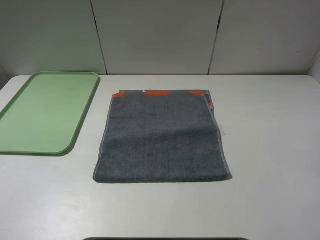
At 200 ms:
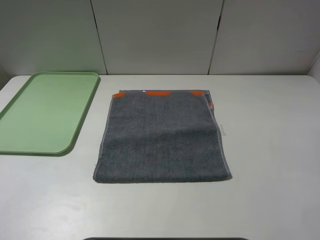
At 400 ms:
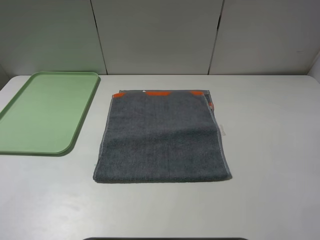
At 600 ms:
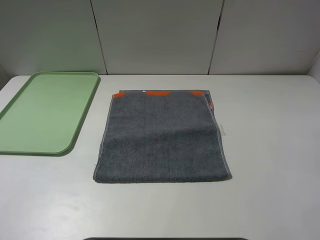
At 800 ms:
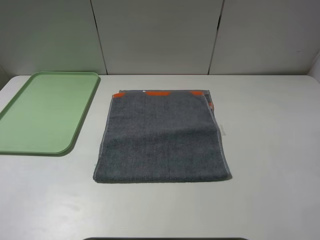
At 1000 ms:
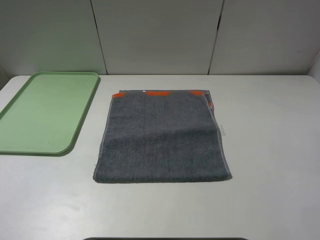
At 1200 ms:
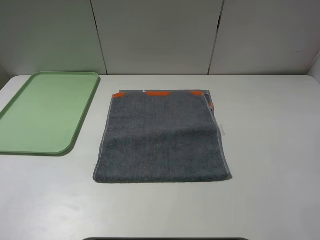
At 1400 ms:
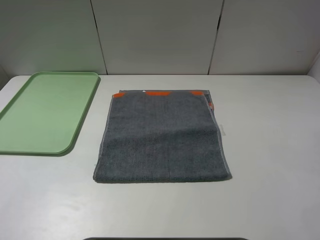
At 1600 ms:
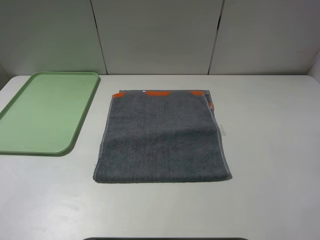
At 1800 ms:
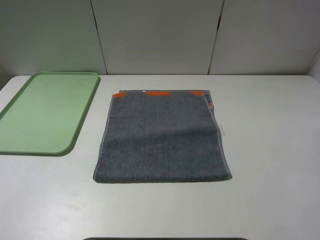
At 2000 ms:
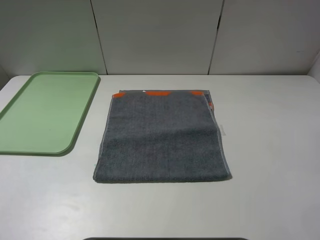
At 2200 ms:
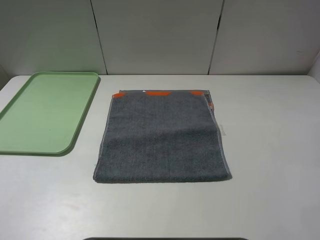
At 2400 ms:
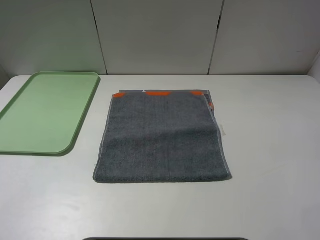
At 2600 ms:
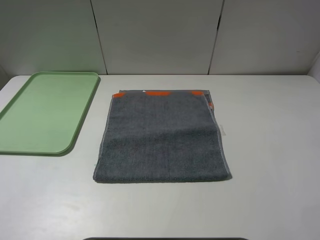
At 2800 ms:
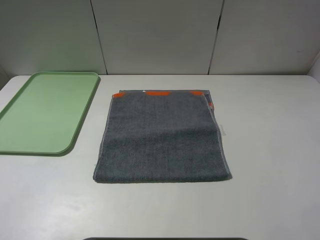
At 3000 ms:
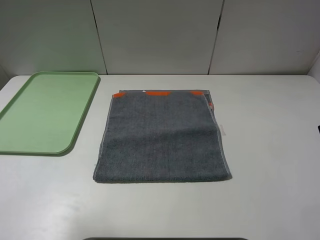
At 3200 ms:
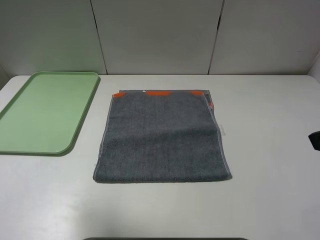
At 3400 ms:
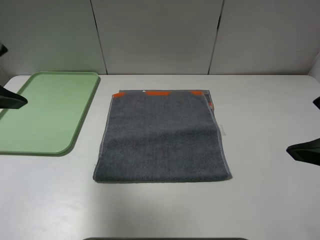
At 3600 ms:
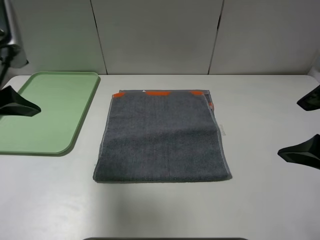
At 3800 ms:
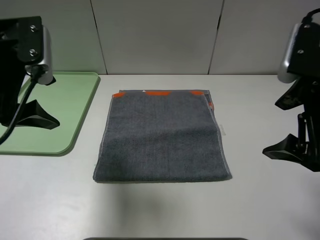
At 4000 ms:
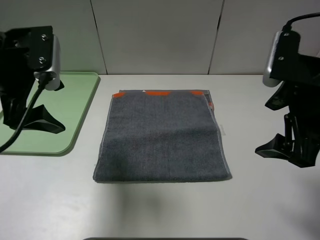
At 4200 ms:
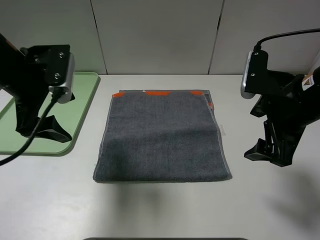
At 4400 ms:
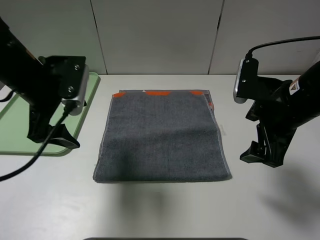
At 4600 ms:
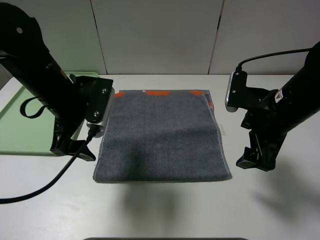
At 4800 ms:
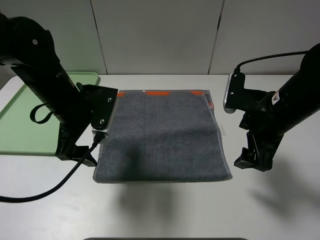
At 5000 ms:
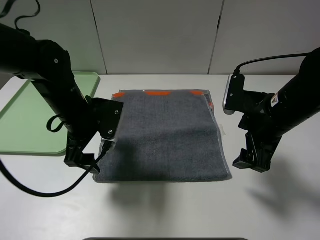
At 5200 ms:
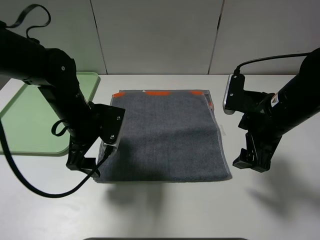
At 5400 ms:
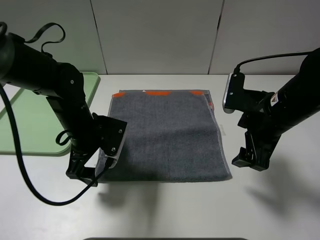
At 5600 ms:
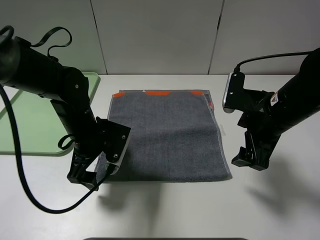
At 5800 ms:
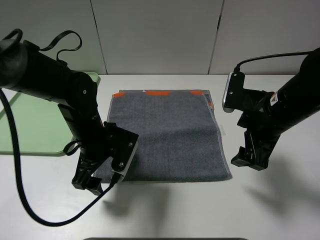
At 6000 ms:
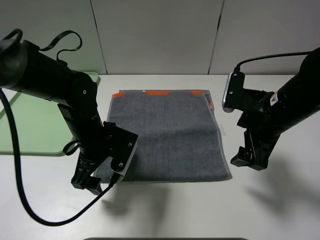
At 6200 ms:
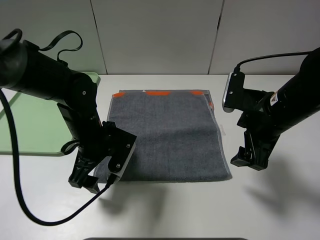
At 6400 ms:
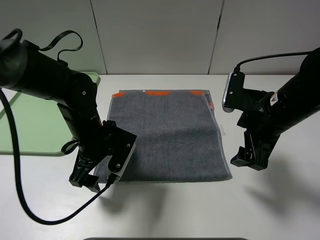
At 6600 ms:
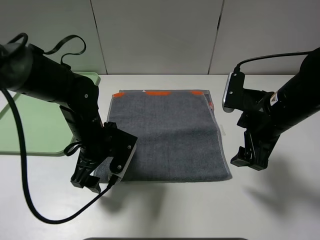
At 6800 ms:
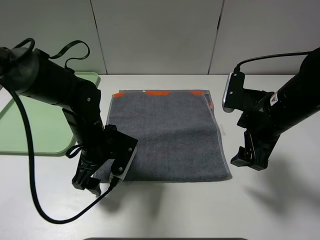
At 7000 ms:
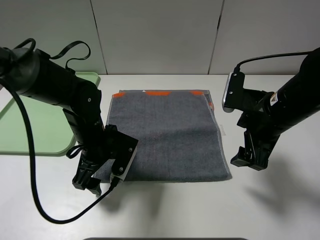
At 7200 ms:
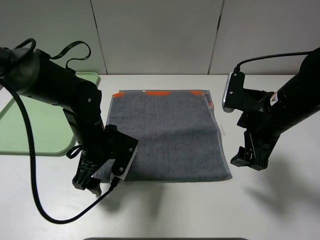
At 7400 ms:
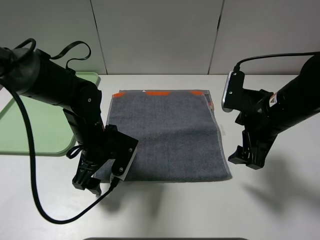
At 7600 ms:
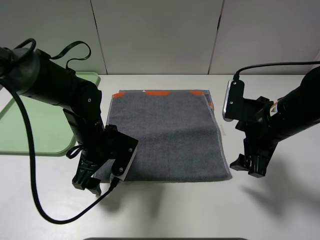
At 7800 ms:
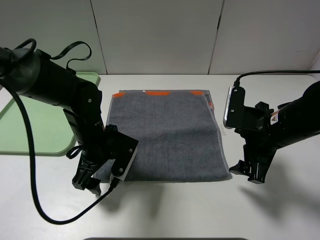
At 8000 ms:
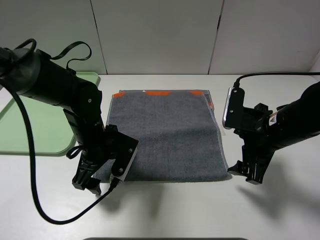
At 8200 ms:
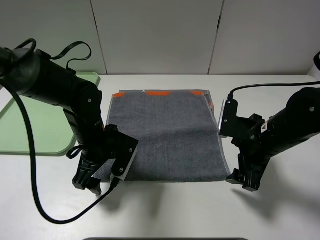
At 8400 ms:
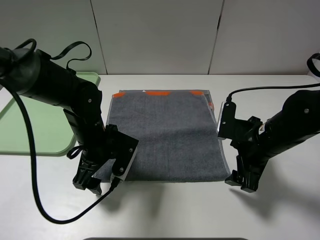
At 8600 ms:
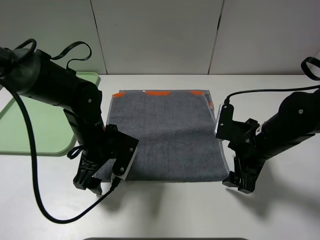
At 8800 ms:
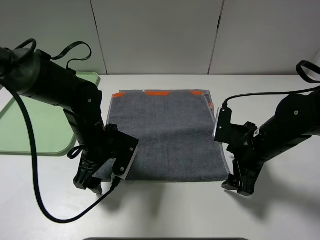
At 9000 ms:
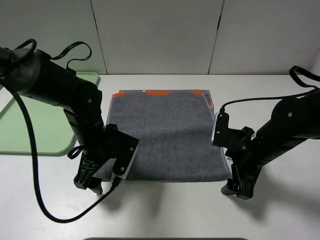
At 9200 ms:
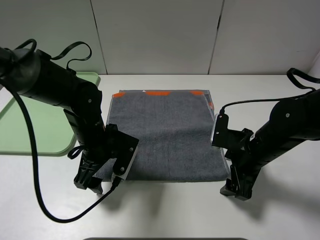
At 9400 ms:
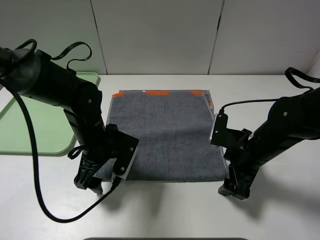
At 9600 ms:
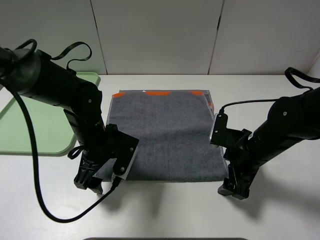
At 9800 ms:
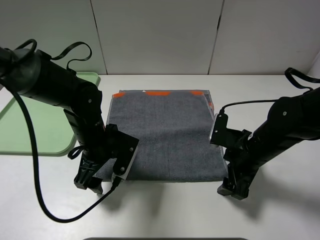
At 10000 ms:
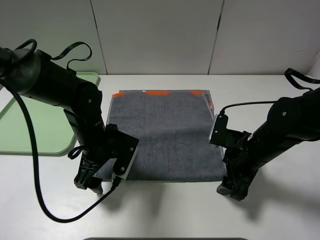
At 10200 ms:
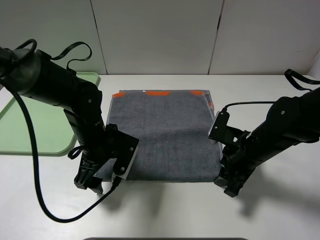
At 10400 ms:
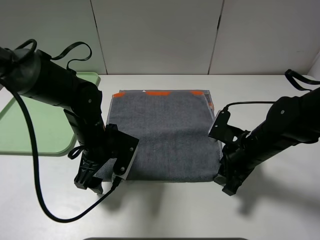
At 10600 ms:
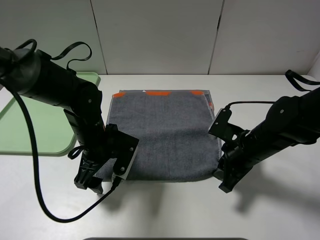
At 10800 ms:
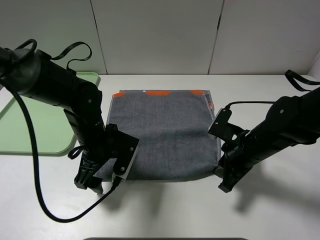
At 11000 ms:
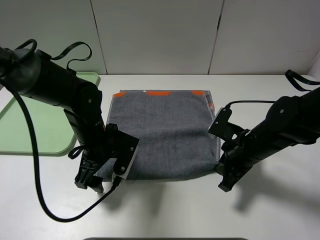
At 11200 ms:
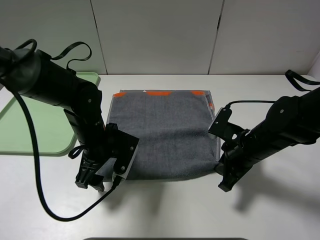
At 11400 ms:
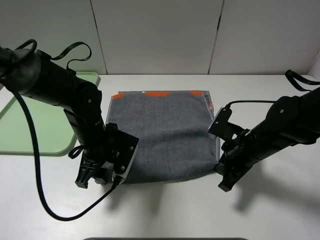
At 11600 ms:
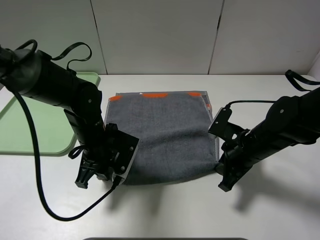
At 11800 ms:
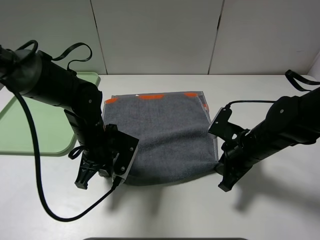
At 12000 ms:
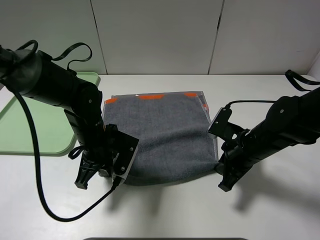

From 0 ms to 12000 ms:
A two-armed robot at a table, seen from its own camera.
From 0 ms to 1600 ms: The two grippers keep their place.
From 1600 ms to 3000 ms: The left gripper goes roughly 15 cm forward and upward.
From 3000 ms to 4400 ms: The right gripper shifts about 20 cm forward, downward and to the left. Meanwhile the left gripper shifts roughly 25 cm forward, downward and to the right.
From 4400 ms to 6000 ms: The left gripper is displaced downward and to the right by roughly 15 cm.
From 6000 ms to 7600 ms: The grippers make only small movements.
From 7600 ms to 9000 ms: The right gripper heads downward, covering roughly 5 cm.
From 9000 ms to 10400 ms: The right gripper closes its fingers.
From 10400 ms to 12000 ms: The right gripper closes up. Meanwhile the left gripper closes its fingers.

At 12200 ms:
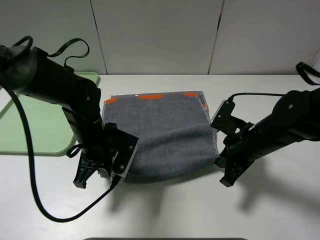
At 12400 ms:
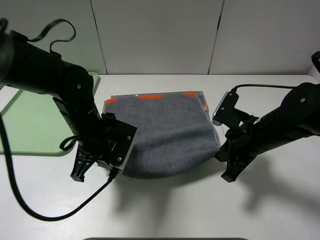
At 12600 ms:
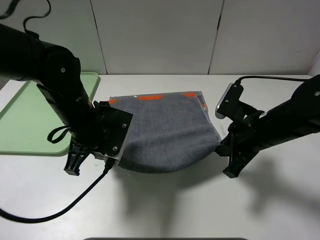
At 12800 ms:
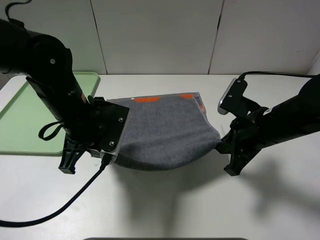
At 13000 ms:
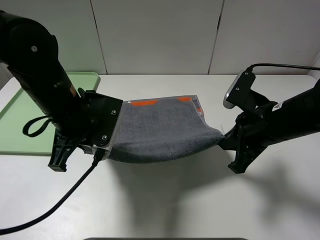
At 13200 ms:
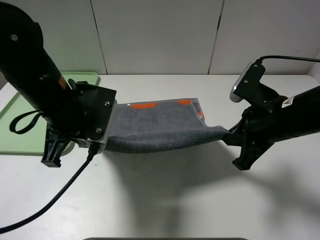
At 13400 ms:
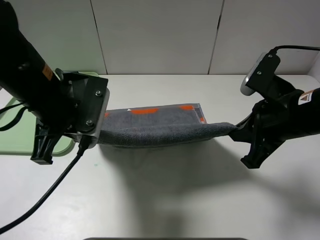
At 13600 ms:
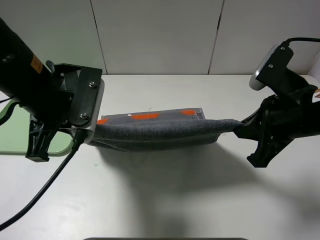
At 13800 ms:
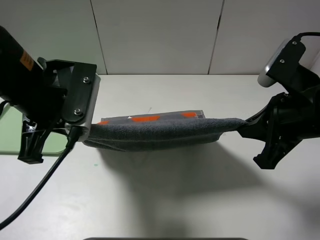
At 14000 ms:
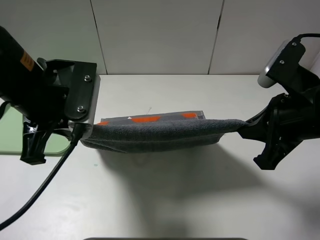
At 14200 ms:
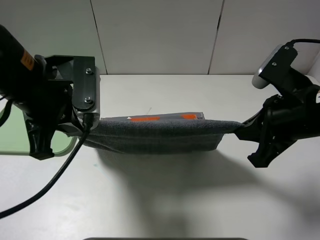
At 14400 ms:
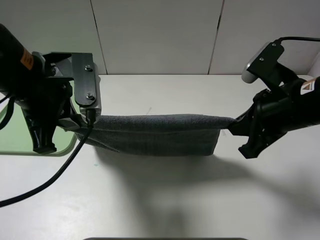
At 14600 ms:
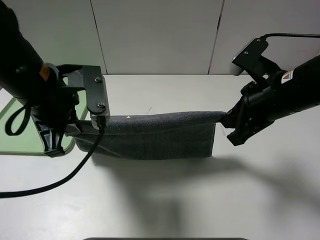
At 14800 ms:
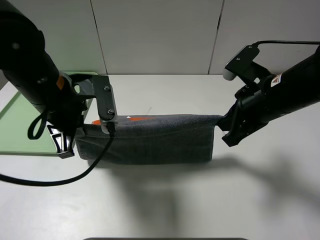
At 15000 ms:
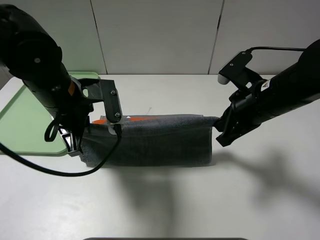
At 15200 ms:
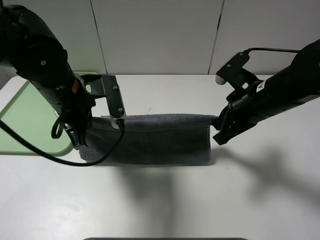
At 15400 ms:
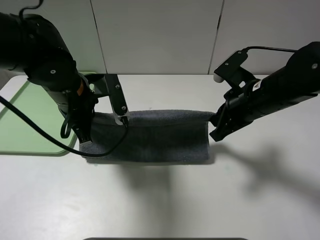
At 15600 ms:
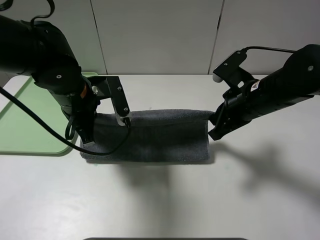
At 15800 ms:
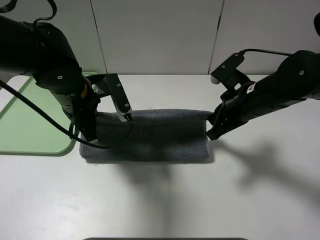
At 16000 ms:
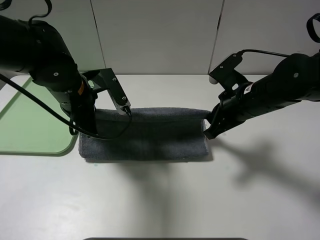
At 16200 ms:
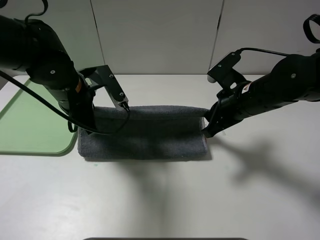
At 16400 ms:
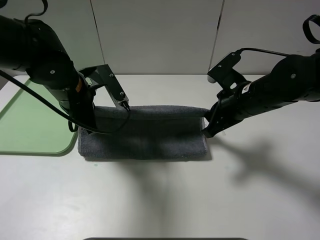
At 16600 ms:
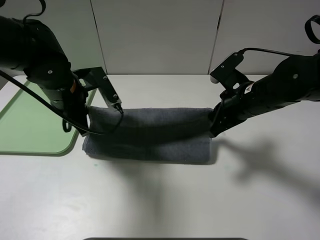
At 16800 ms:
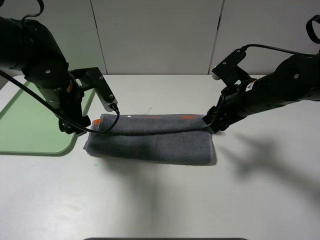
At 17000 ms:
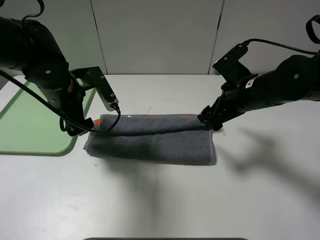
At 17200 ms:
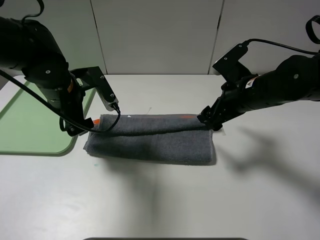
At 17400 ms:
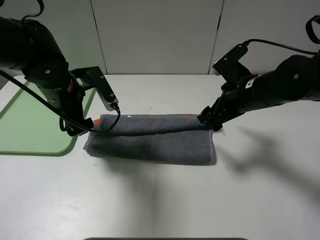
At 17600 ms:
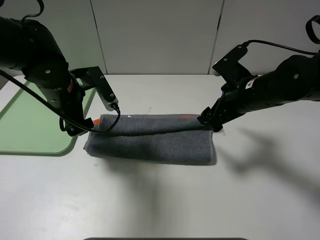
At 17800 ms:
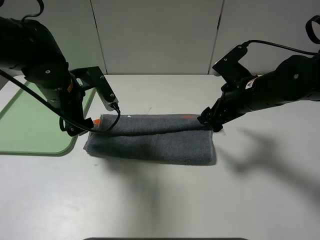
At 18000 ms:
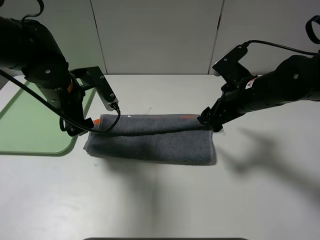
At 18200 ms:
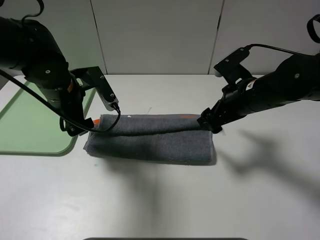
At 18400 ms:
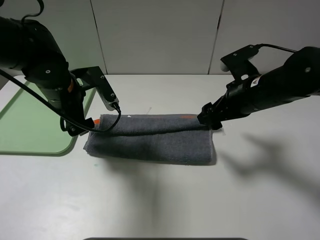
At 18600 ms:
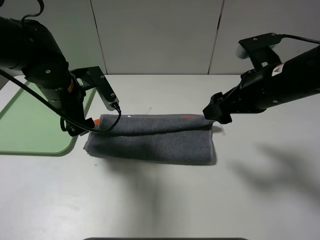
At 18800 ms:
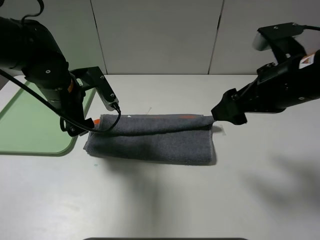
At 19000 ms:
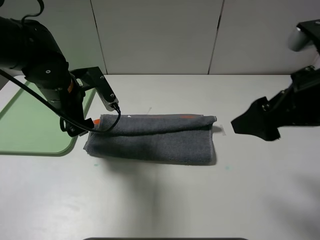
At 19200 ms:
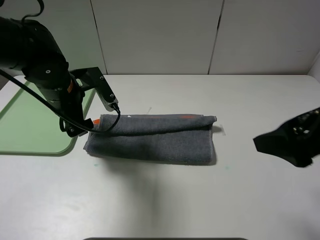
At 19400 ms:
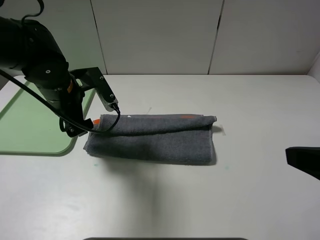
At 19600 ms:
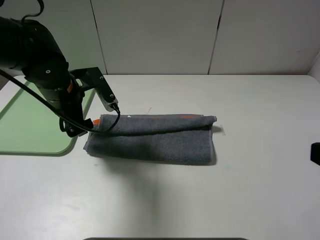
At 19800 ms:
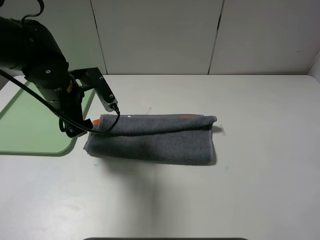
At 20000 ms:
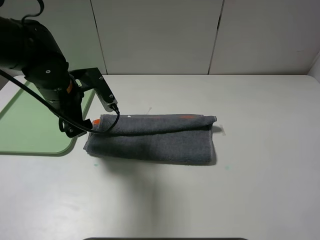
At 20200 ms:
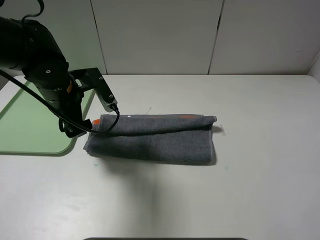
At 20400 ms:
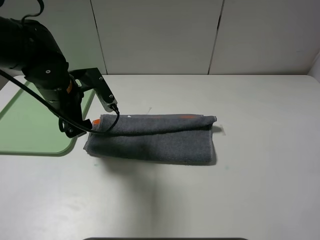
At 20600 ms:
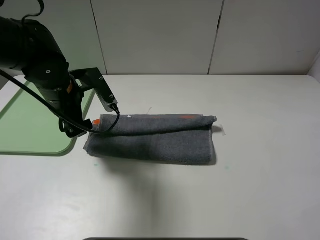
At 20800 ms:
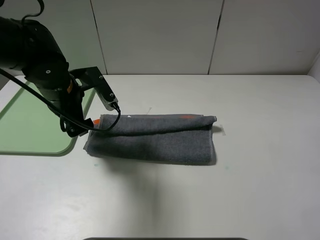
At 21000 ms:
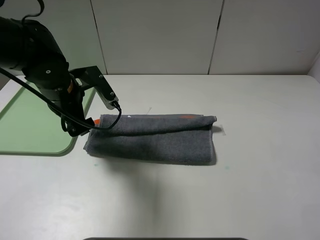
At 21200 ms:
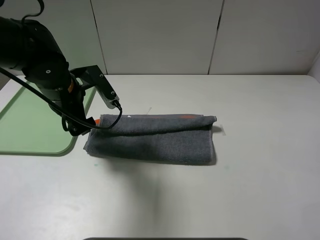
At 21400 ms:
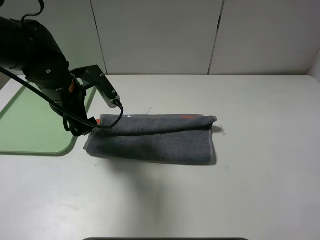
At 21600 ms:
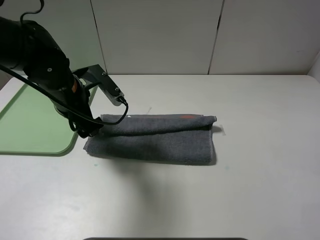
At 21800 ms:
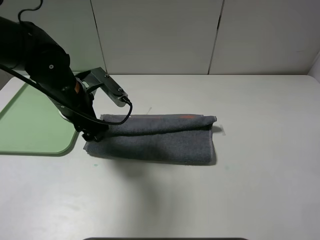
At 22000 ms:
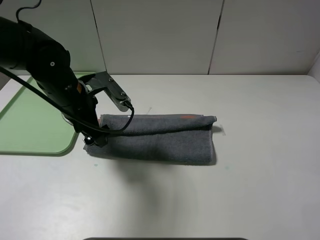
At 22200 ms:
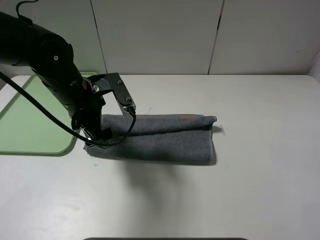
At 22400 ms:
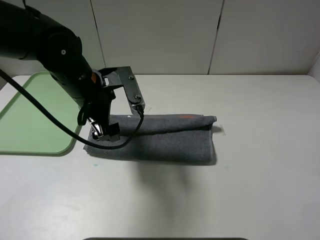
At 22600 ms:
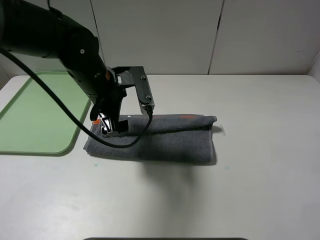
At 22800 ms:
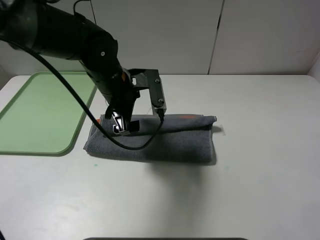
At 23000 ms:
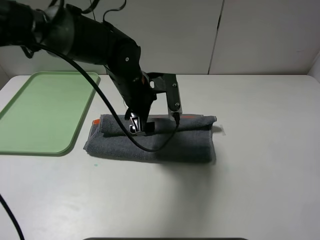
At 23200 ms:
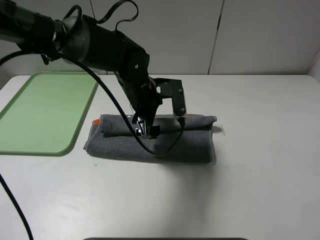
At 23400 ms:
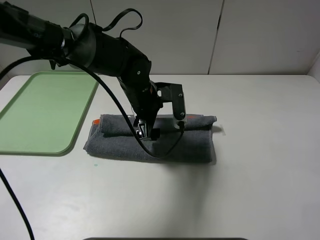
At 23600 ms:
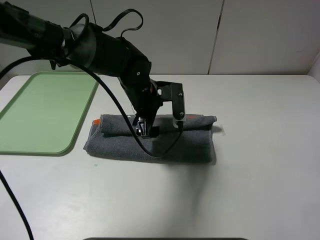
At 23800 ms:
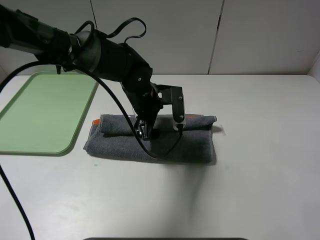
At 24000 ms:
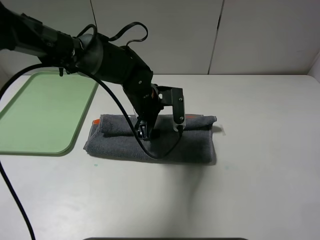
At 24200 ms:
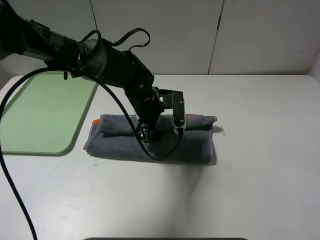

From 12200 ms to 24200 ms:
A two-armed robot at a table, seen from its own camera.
From 12200 ms to 13800 ms: The left gripper travels upward by approximately 15 cm. The right gripper travels upward and backward by approximately 15 cm.
From 13800 ms to 15200 ms: The left gripper moves downward and forward, some 10 cm. The right gripper heads forward and downward, covering about 10 cm.
From 15200 ms to 16600 ms: The left gripper opens up.
From 16600 ms to 18200 ms: The right gripper opens its fingers. Meanwhile the left gripper opens up.
From 18200 ms to 19800 ms: The right gripper heads backward and upward, covering roughly 30 cm.
From 21200 ms to 22600 ms: The left gripper travels to the right by about 10 cm.
From 22600 ms to 24200 ms: The left gripper moves to the right and downward, approximately 10 cm.
